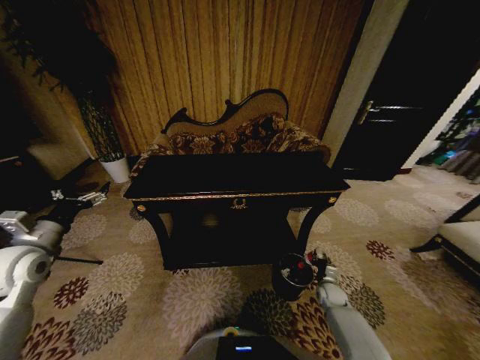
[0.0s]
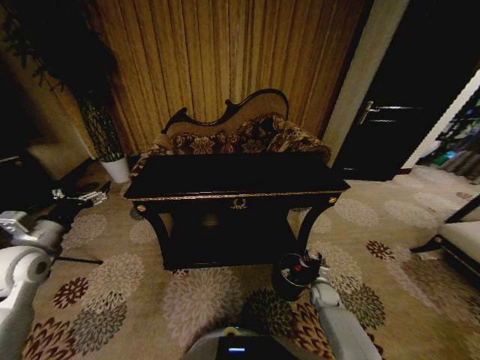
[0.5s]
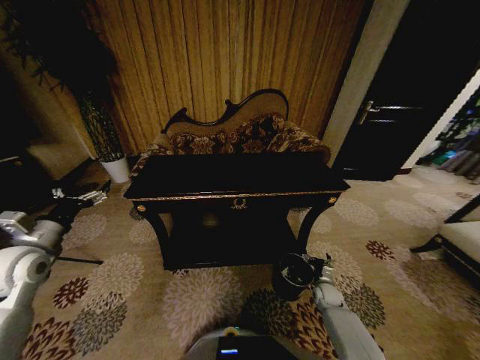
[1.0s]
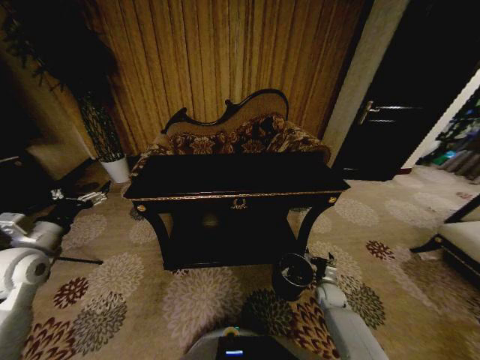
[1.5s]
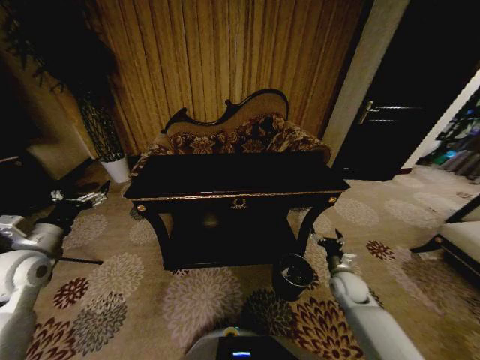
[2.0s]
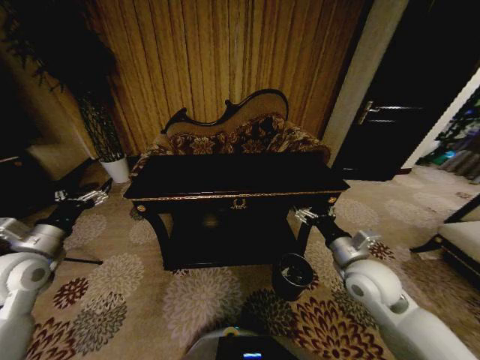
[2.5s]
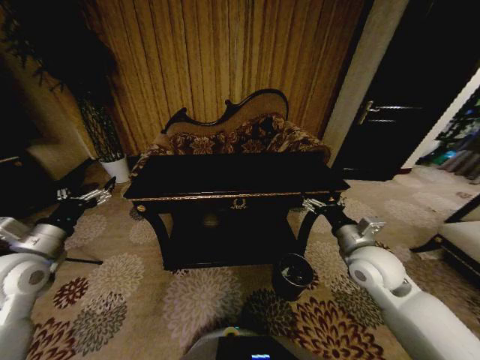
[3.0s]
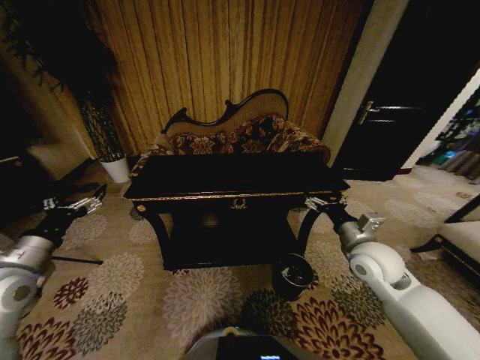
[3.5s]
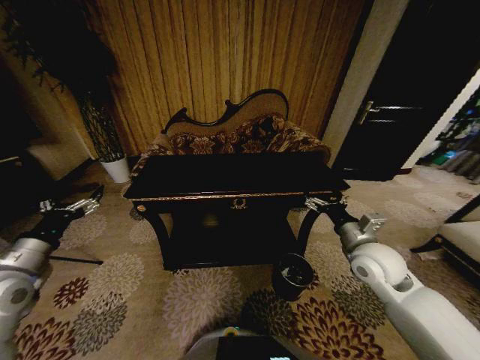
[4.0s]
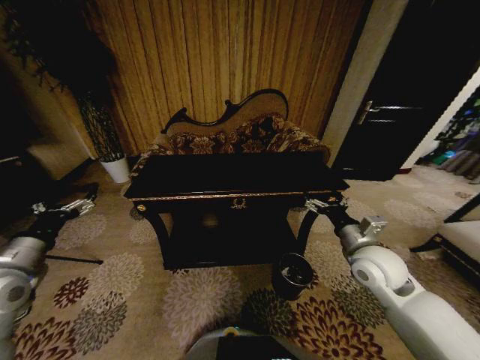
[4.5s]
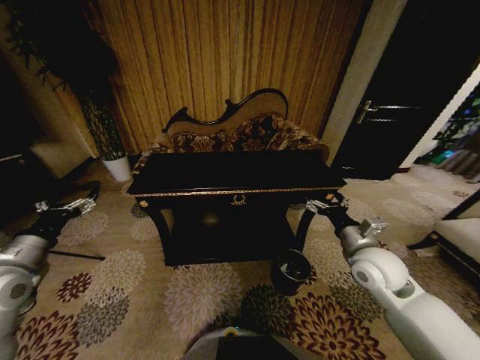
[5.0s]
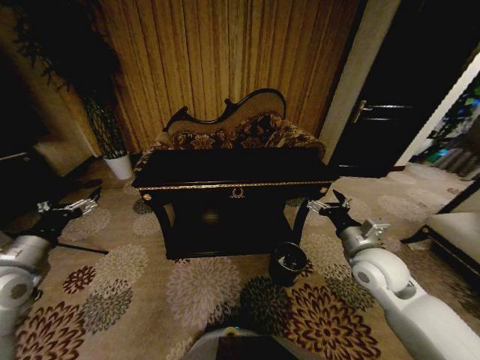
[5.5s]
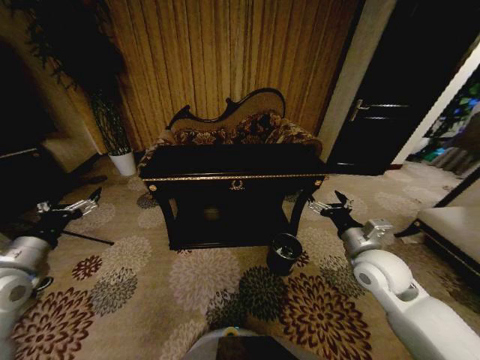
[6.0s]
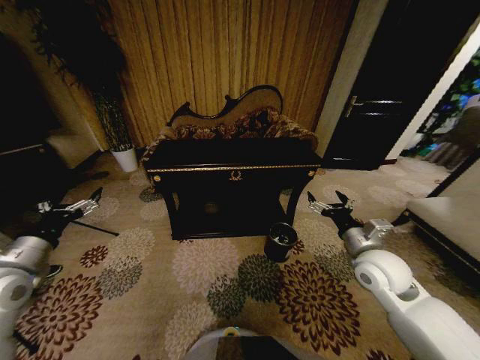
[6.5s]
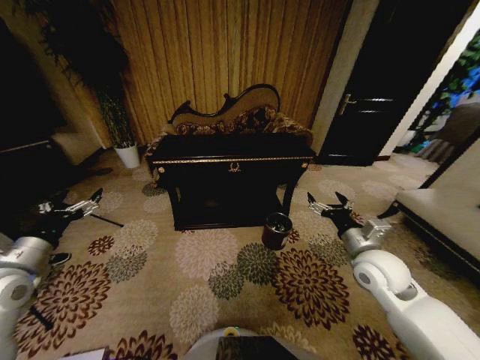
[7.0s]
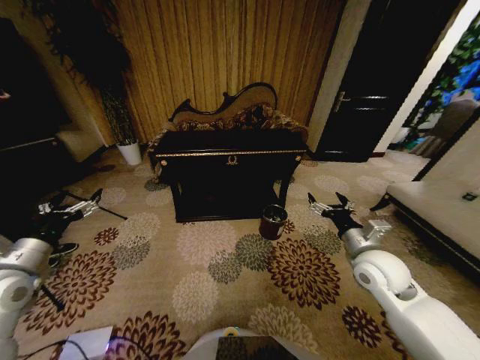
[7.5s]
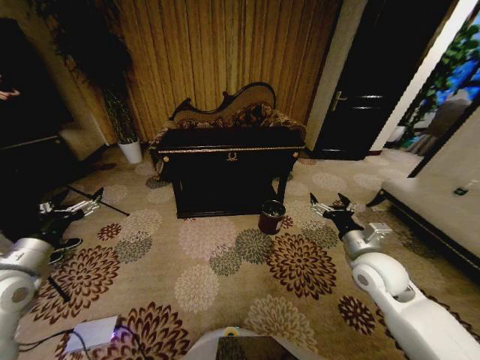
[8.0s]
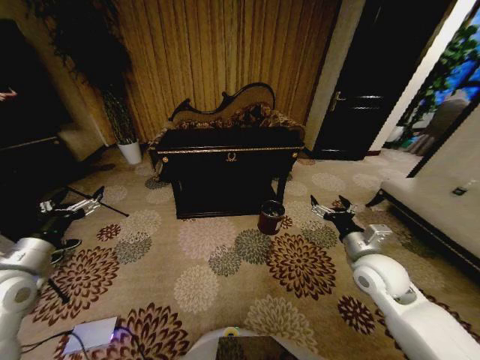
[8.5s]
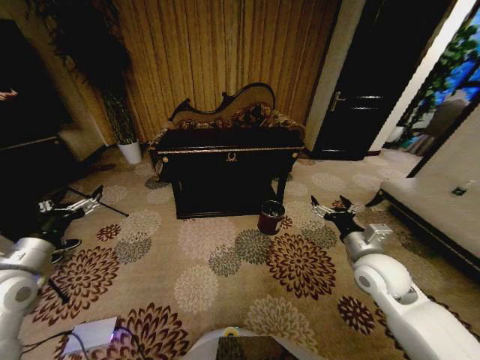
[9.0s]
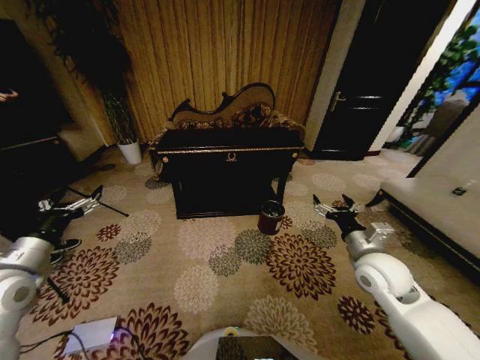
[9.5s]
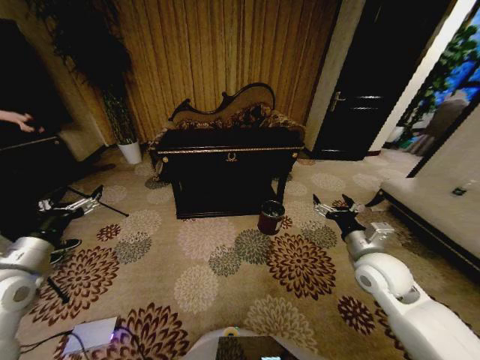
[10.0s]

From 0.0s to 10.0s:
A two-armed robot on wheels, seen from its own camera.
Task of the whole recording: Move to the front of the table and place the trash on the table into the trash bin.
From 0.0s to 2.0s: The right gripper heads upward, covering roughly 10 cm, and opens.
From 2.0s to 4.0s: The left gripper shifts by some 5 cm. Meanwhile the right gripper goes some 20 cm upward.
From 8.0s to 10.0s: The two grippers keep their place.

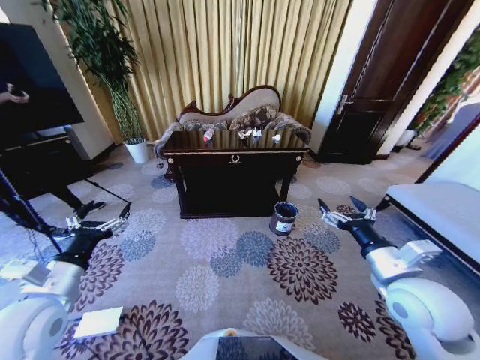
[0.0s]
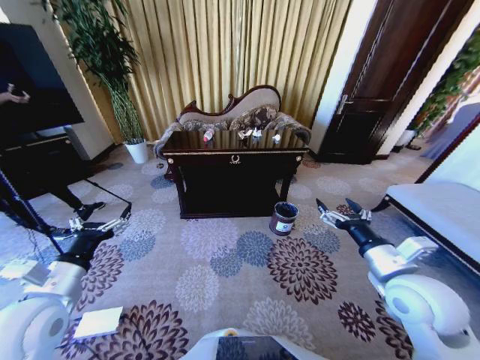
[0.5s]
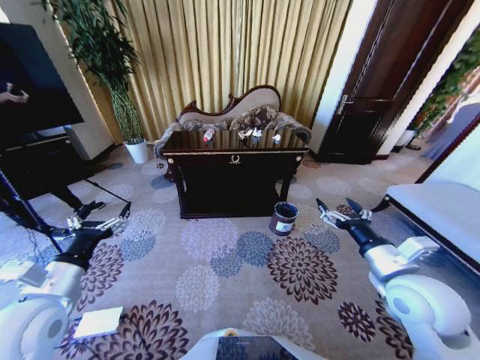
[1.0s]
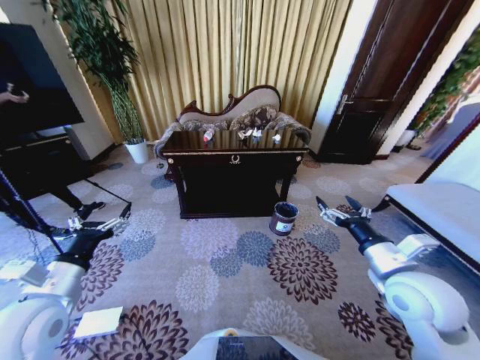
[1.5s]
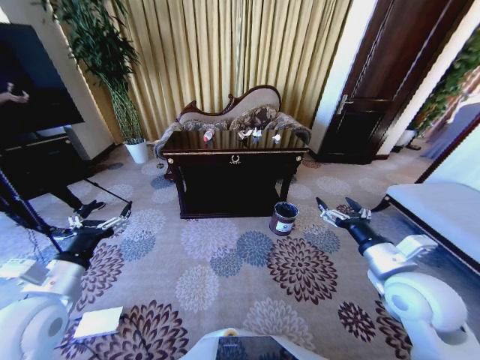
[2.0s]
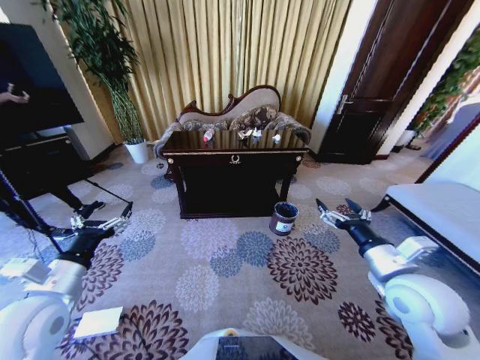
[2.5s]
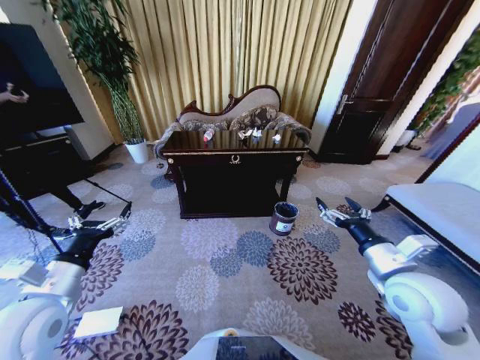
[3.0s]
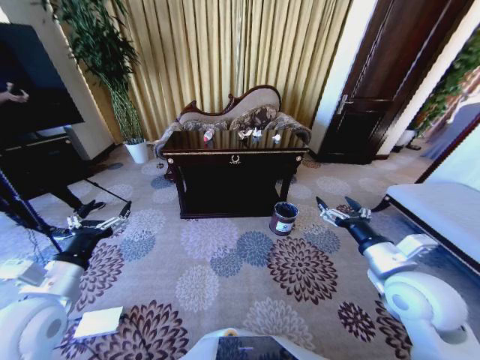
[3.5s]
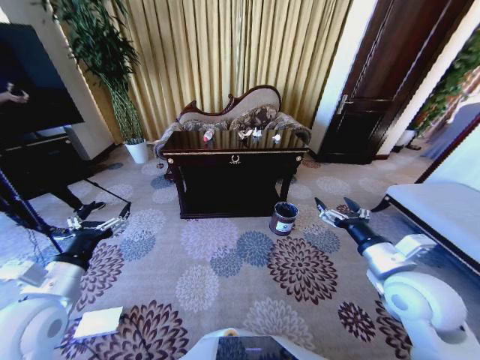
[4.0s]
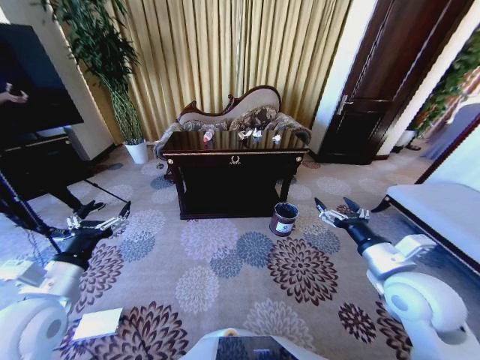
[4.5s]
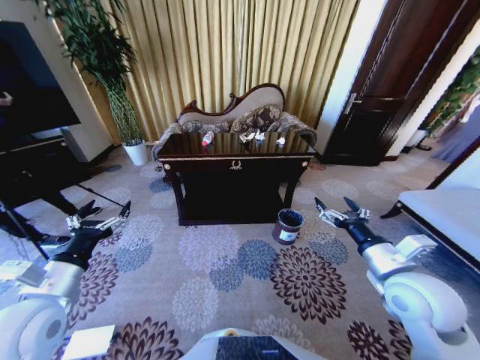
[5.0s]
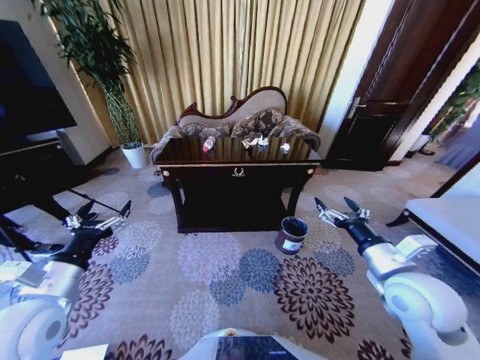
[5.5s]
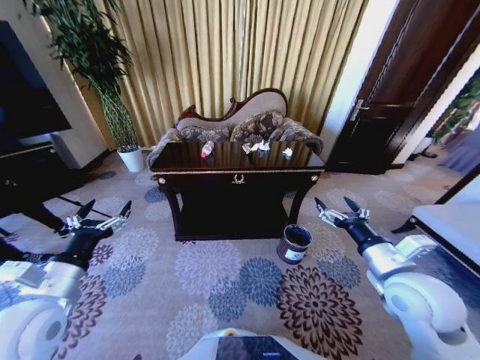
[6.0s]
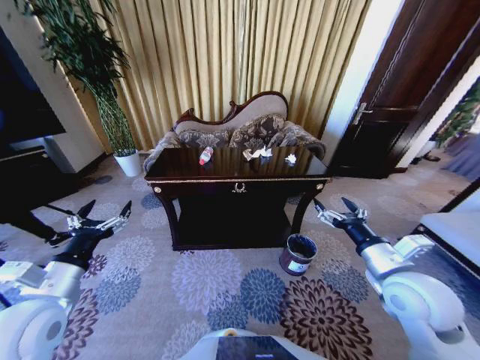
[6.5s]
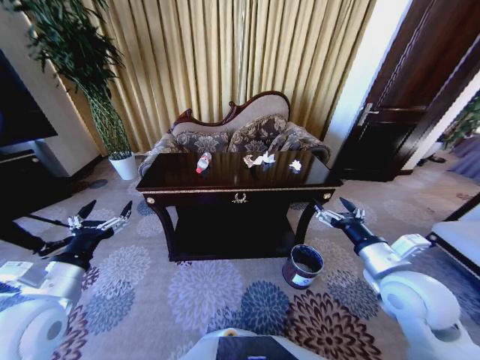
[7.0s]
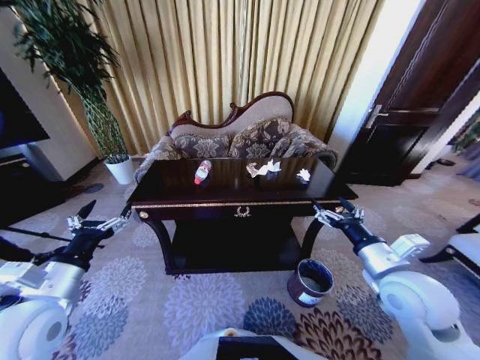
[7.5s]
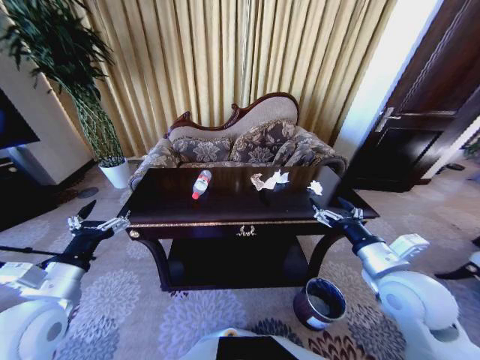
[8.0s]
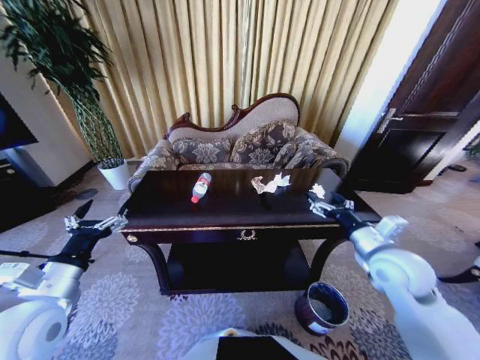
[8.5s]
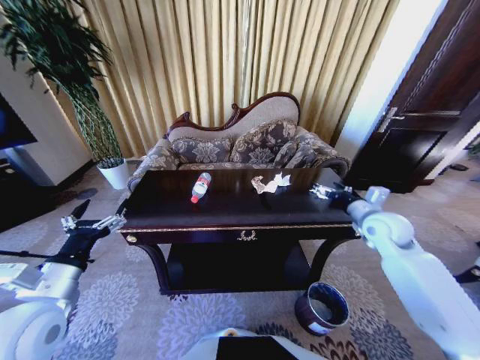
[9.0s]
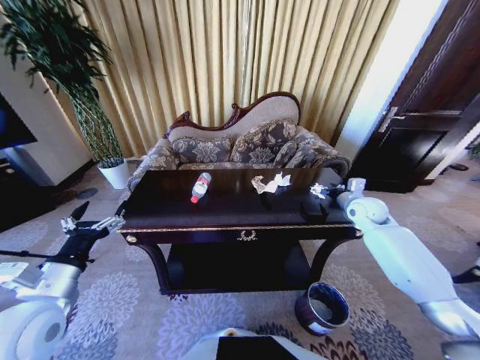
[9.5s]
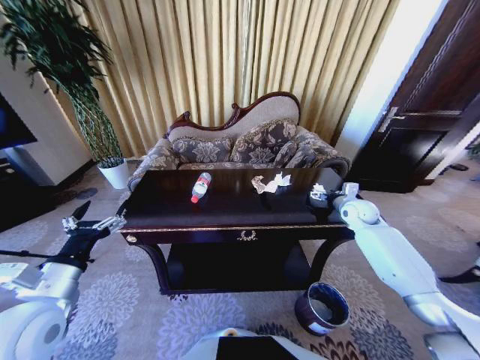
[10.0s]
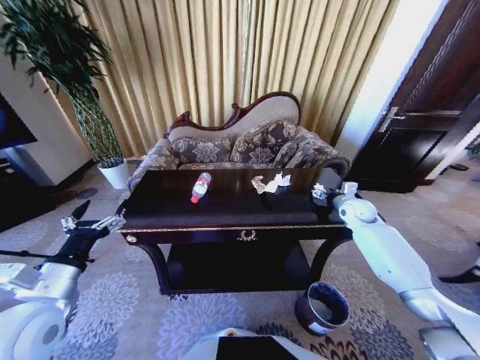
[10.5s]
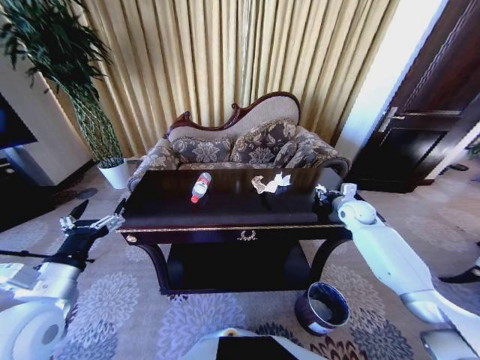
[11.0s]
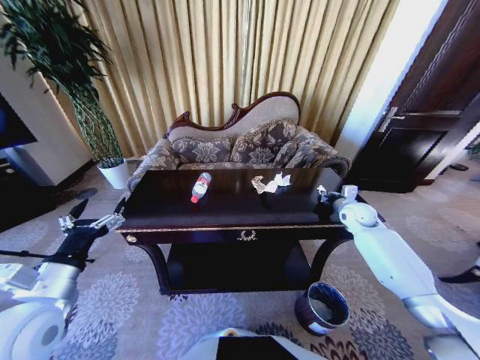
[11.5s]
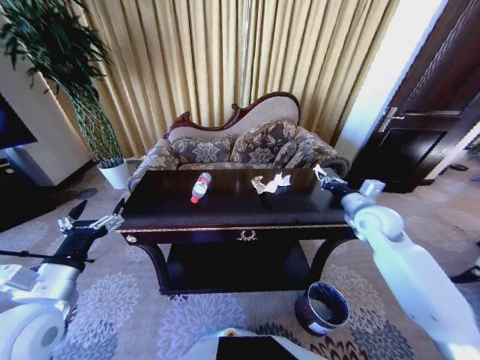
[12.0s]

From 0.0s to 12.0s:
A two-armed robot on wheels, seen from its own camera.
Task of the whole recording: Move to the front of the table and place the trash on the table into the trash bin.
From 2.0s to 4.0s: Both grippers stay put.
From 8.0s to 10.0s: The right gripper heads forward, covering about 25 cm.
From 10.0s to 12.0s: The right gripper travels backward and upward by about 10 cm, and closes up.

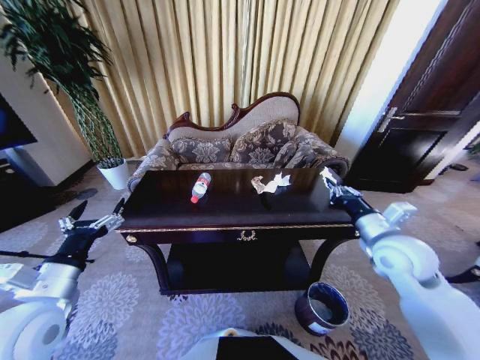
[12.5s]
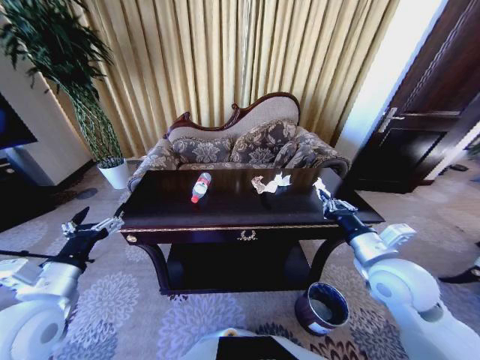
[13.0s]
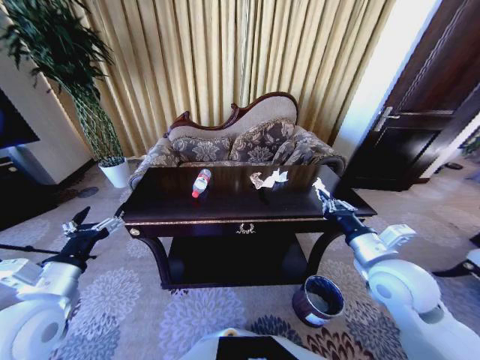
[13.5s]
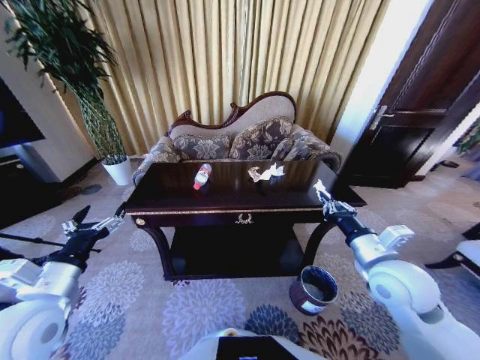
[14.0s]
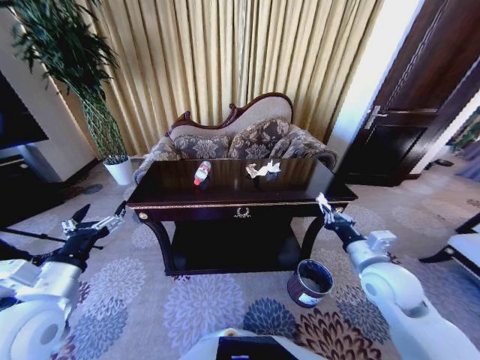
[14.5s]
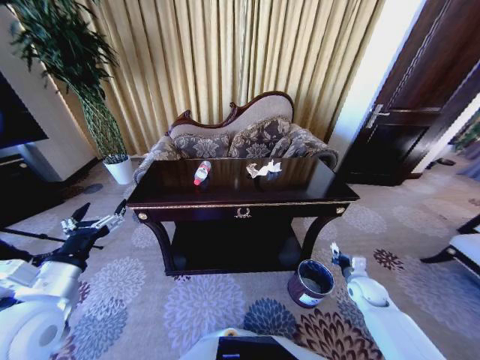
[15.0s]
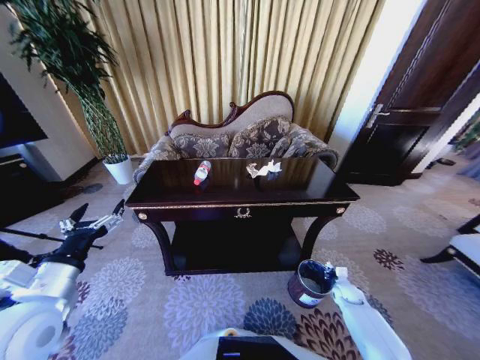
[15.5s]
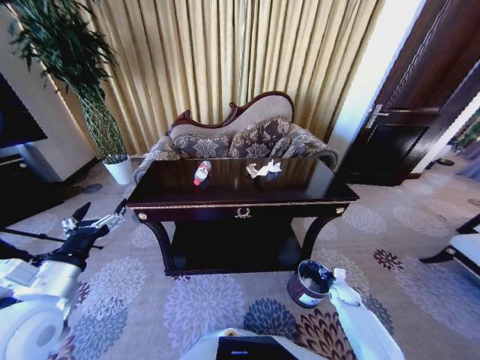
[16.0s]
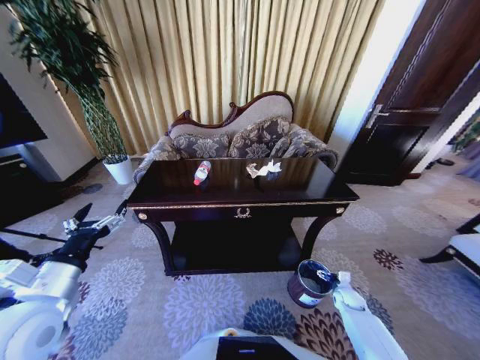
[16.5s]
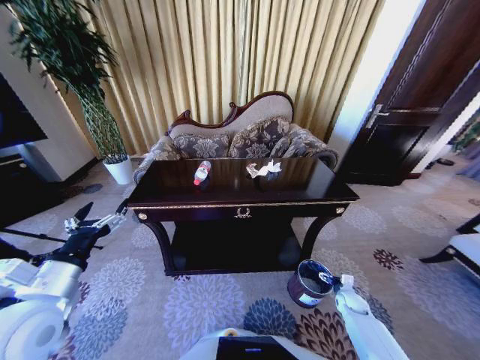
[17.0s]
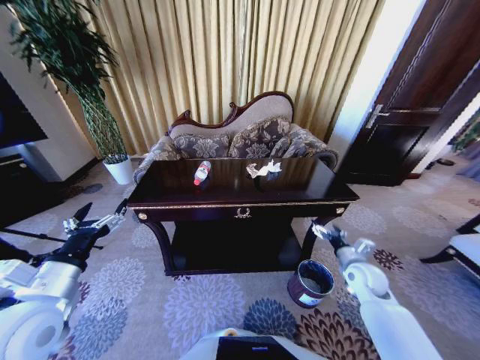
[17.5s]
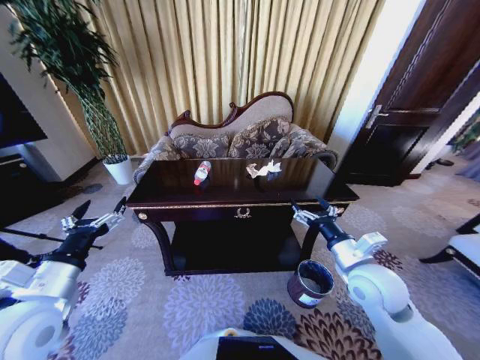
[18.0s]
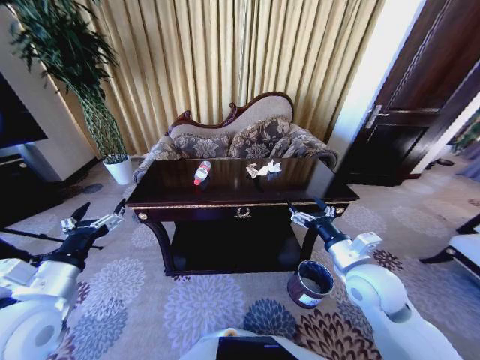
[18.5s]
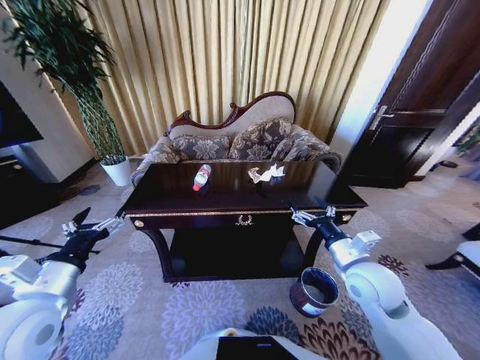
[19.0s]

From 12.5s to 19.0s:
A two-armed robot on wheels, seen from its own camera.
Task of the whole recording: Move to the front of the table and place the trash on the table into the trash bin.
From 12.5s to 14.5s: The right gripper shifts roughly 5 cm downward.
From 14.5s to 17.0s: The right gripper is displaced downward by about 30 cm, and opens its fingers.
From 17.0s to 19.0s: The right gripper goes approximately 35 cm upward and to the left.
